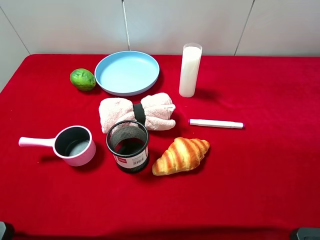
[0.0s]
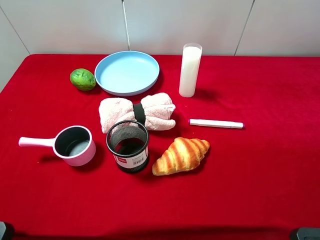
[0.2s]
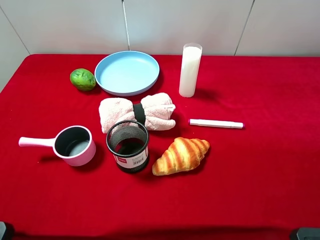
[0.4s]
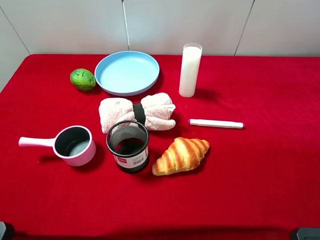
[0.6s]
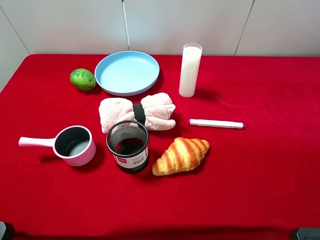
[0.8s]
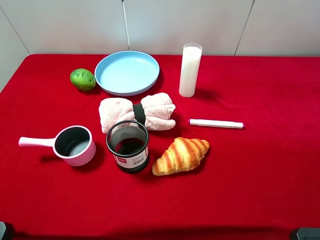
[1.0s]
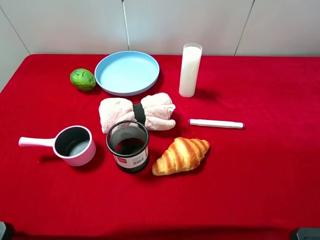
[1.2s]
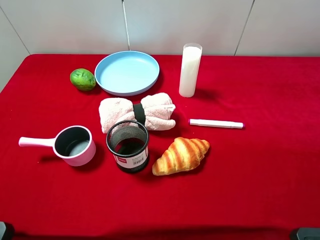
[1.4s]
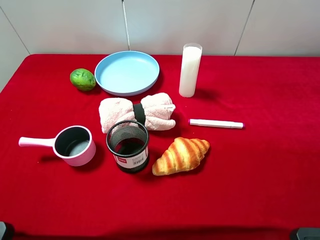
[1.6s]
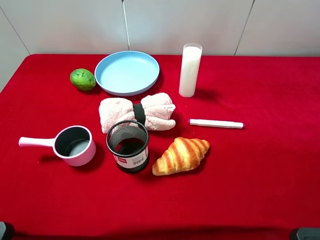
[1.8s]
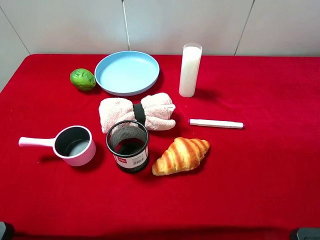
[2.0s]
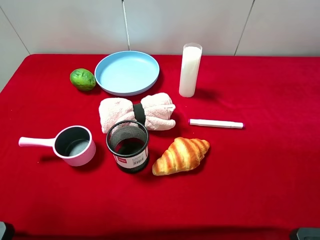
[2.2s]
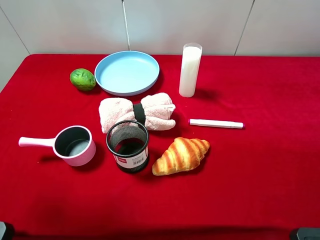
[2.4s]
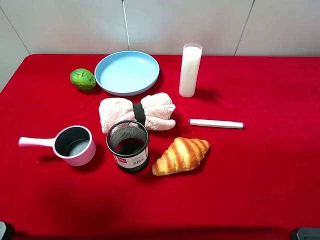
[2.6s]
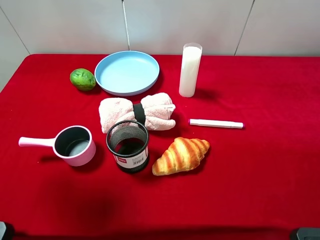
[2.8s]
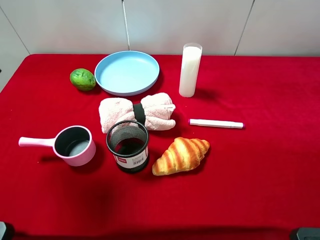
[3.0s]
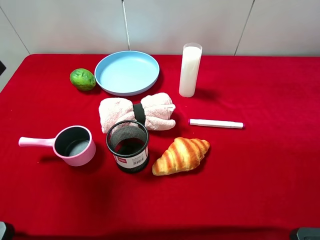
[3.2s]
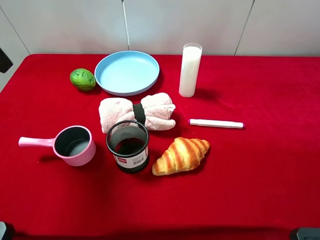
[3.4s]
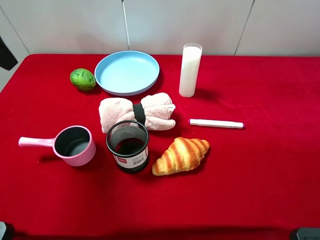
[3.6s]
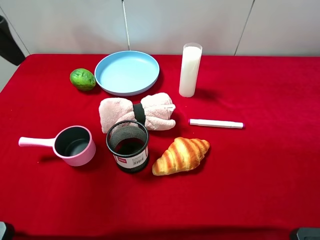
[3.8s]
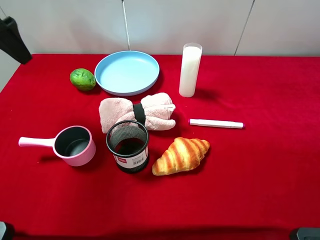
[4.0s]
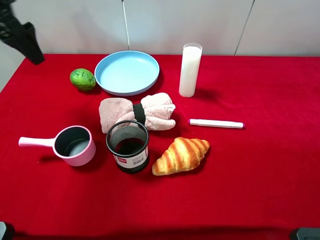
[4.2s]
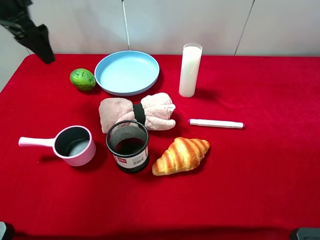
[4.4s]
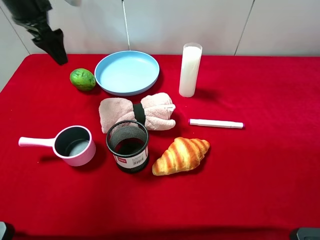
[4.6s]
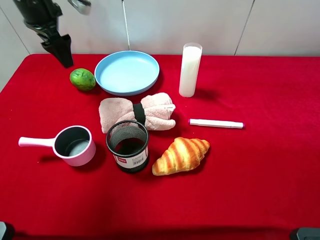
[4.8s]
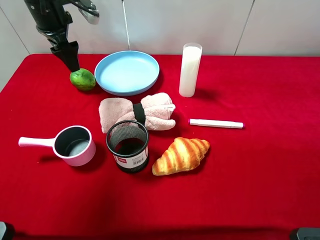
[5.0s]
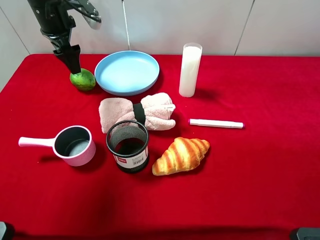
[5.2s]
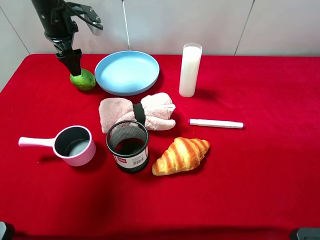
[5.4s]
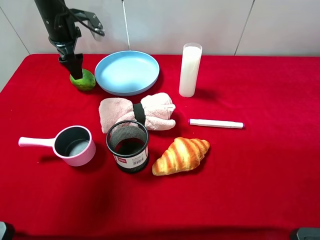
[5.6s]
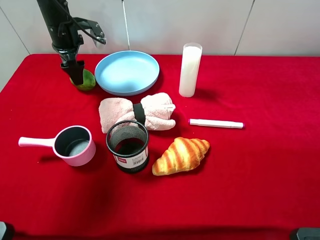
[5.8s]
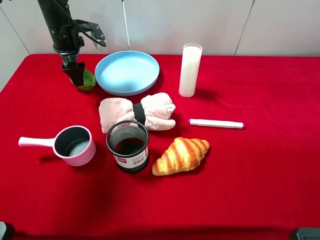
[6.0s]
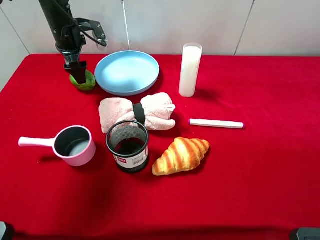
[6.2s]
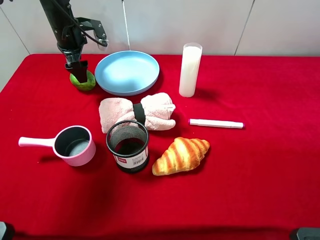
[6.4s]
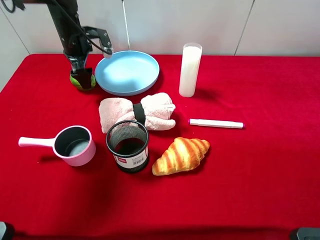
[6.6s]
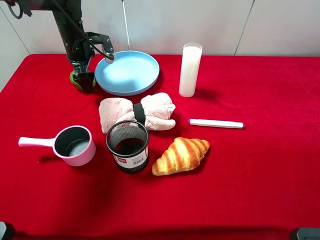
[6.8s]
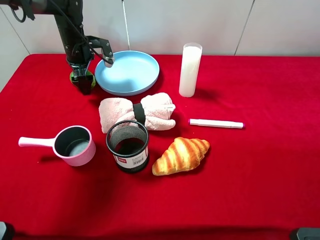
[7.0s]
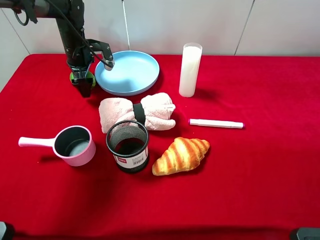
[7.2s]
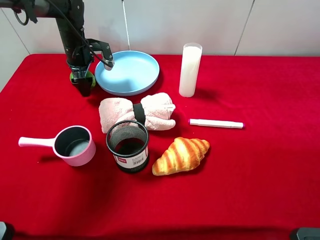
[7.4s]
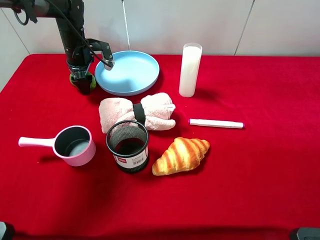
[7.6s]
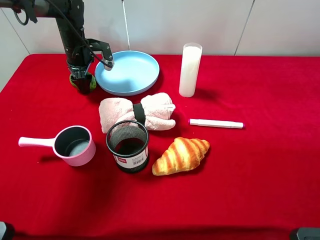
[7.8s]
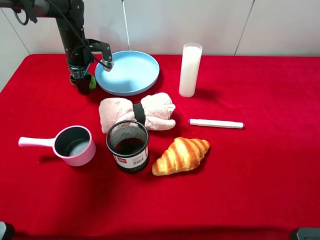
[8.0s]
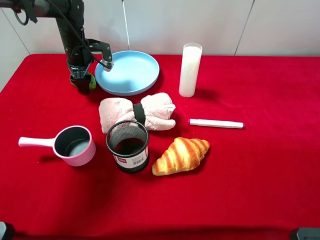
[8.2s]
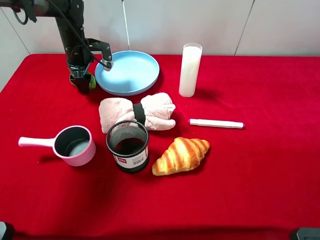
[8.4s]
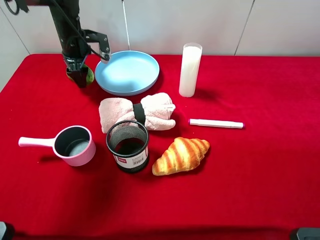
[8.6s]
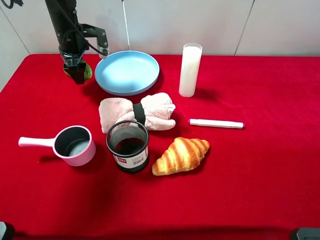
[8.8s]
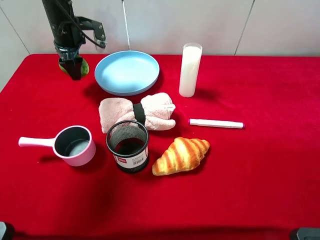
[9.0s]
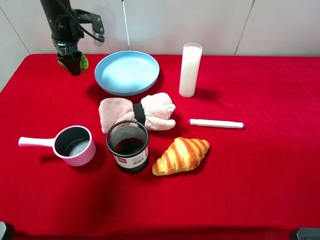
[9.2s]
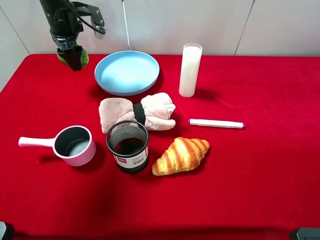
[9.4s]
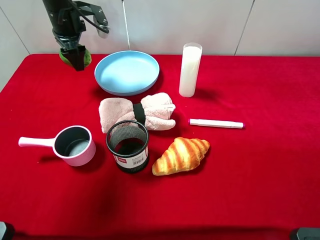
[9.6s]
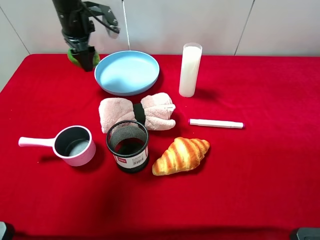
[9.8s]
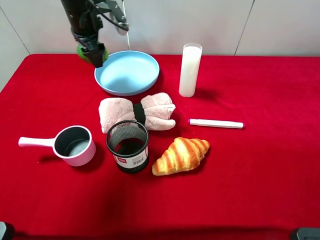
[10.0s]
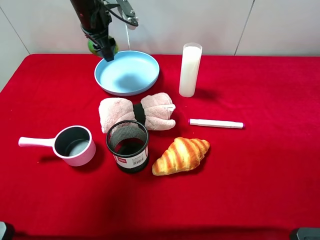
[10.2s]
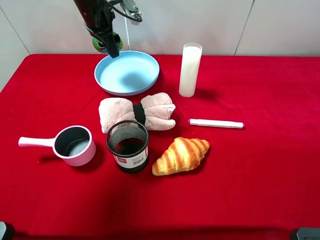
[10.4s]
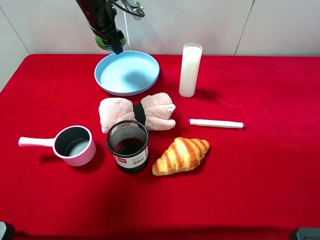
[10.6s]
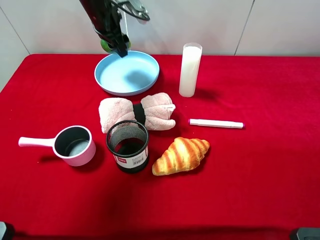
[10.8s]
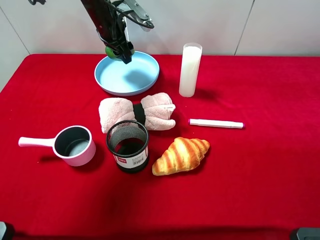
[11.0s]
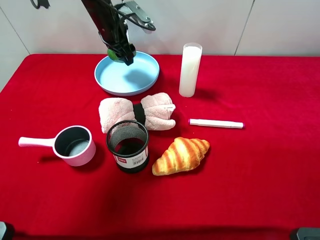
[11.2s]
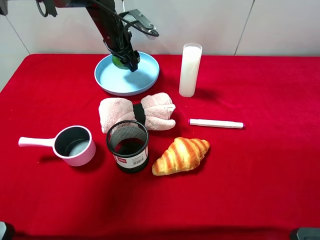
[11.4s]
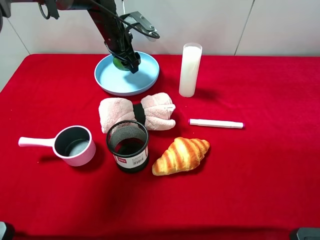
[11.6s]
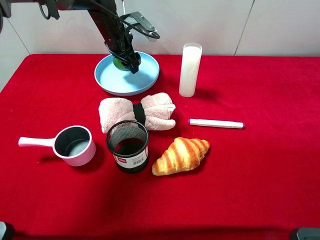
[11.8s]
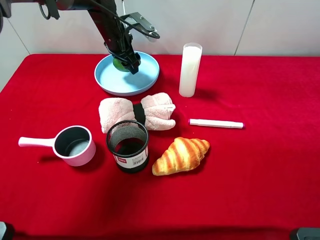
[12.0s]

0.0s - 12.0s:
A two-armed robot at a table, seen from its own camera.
Task of the whole recording: pick up an item with a gripper and place it in a random container on the desktop.
1.6s - 3.0s: The left gripper travels forward by some 20 cm.
3.0s - 4.4s: The left gripper travels forward by approximately 15 cm.
4.4s - 6.0s: The left gripper heads downward and forward, covering some 15 cm.
6.0s - 7.6s: The left gripper shifts about 5 cm downward, and closes up.
7.6s - 9.0s: The left gripper heads upward, covering some 5 cm.
9.0s - 10.4s: The left gripper shifts some 5 cm to the right.
10.4s - 12.0s: The left gripper shifts roughly 5 cm downward.

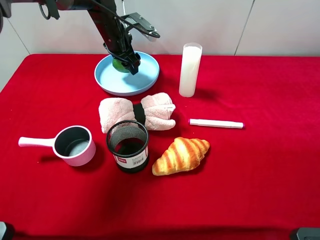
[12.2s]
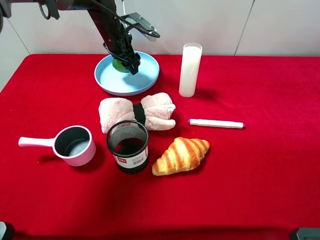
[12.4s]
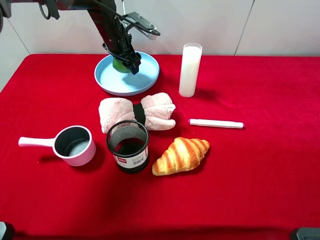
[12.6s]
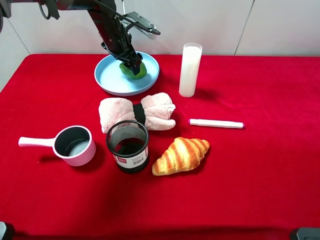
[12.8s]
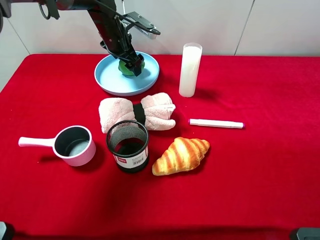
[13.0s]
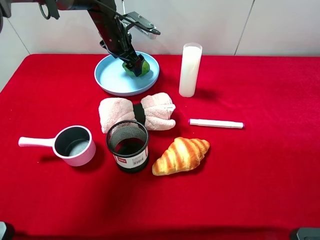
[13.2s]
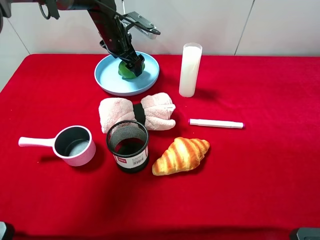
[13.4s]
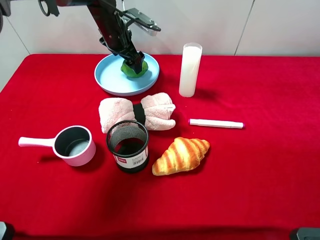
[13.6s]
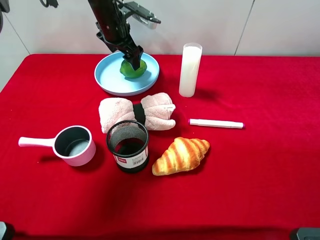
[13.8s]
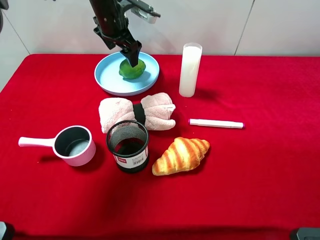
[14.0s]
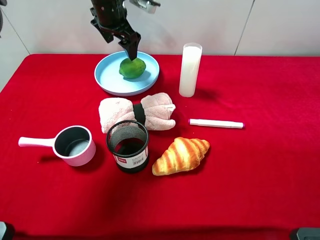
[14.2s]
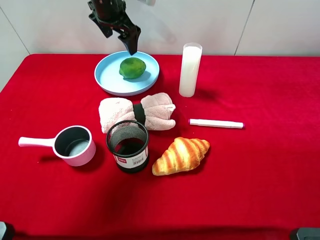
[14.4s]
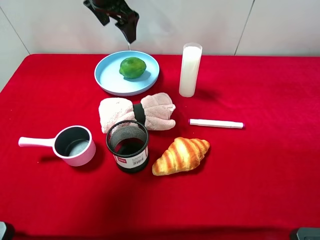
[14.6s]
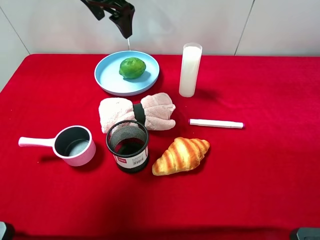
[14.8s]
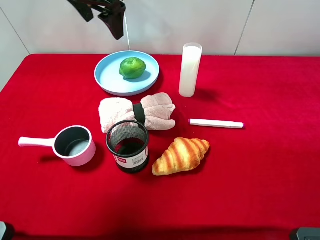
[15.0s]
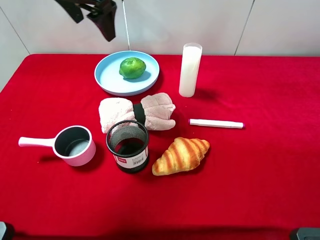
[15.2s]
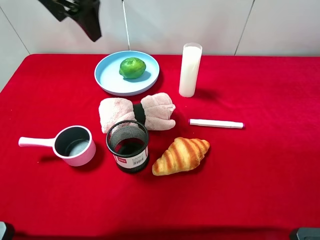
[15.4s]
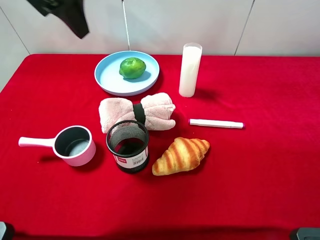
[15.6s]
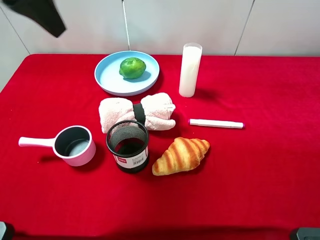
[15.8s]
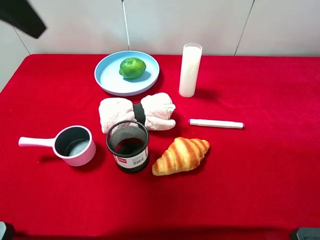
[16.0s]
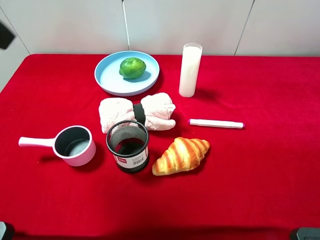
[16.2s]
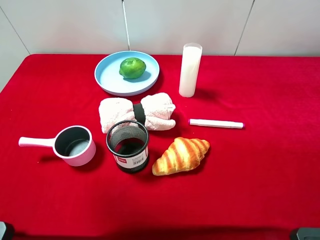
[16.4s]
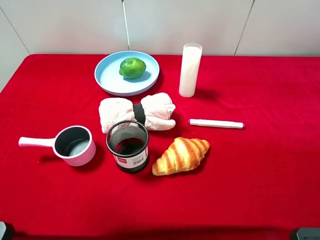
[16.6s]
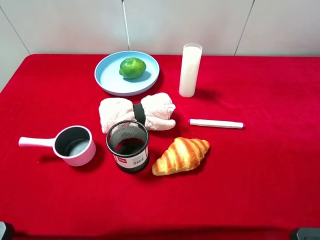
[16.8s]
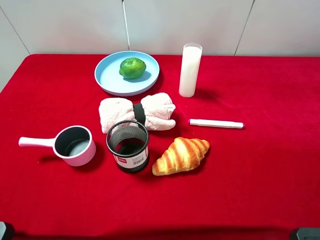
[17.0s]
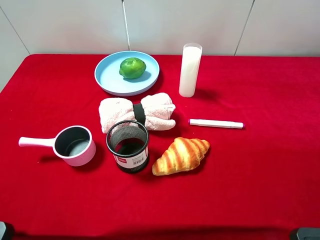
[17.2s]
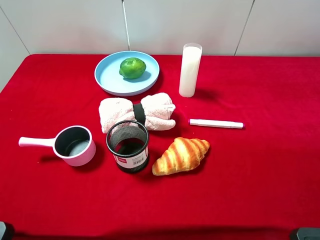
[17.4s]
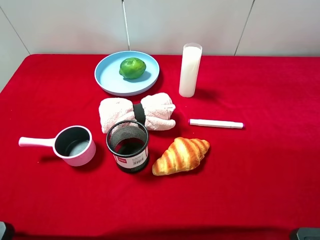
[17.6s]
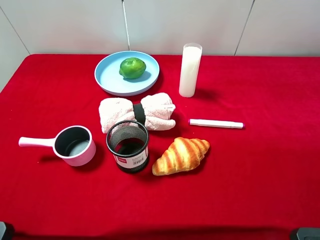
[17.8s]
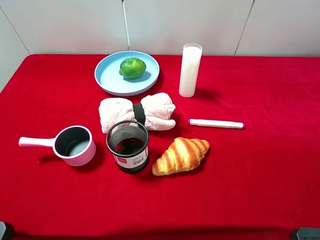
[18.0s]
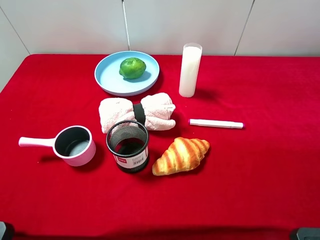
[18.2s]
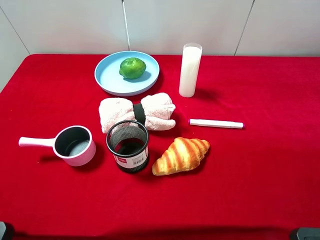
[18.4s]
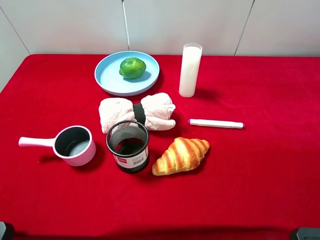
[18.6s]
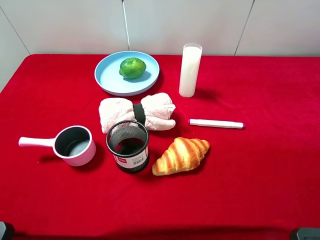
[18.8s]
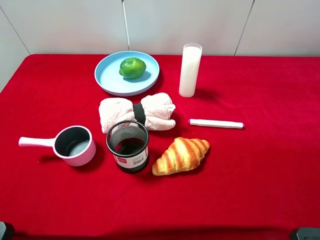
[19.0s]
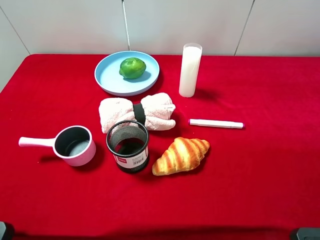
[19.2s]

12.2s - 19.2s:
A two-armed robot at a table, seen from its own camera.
Task of the whole recording: pick up an item with a gripper and place it in a random container on the desktop.
12.2s - 13.6s: The left gripper opens up.
13.6s - 15.0s: The left gripper heads upward and backward, covering about 15 cm.
15.0s - 16.4s: The left gripper travels backward by about 25 cm.
